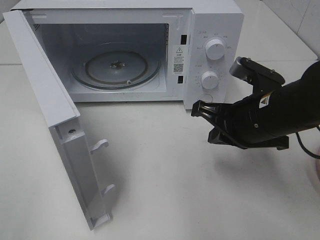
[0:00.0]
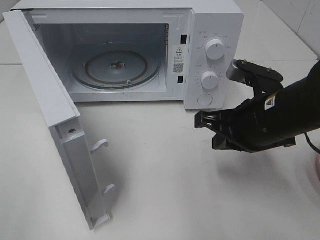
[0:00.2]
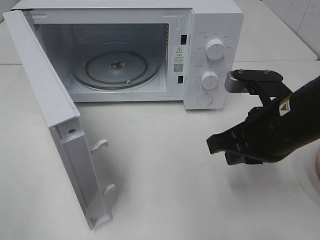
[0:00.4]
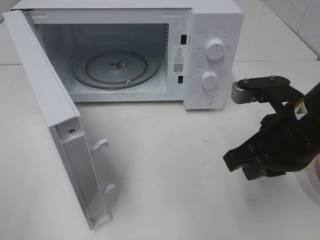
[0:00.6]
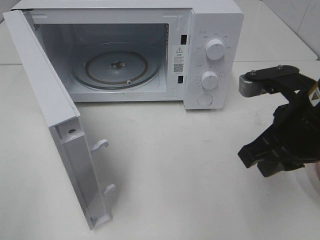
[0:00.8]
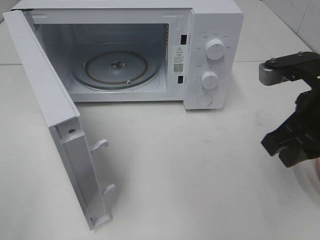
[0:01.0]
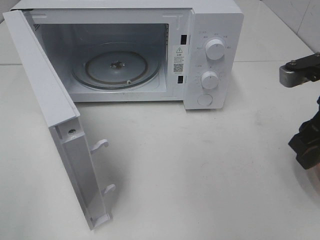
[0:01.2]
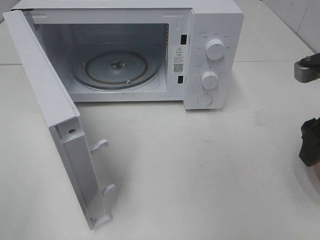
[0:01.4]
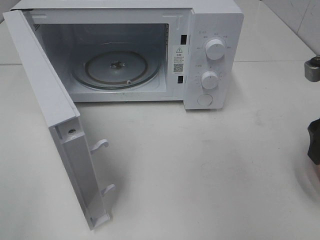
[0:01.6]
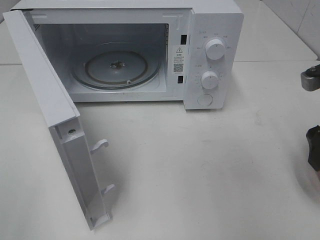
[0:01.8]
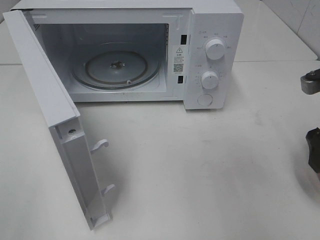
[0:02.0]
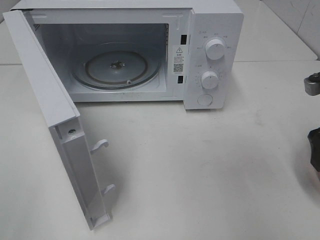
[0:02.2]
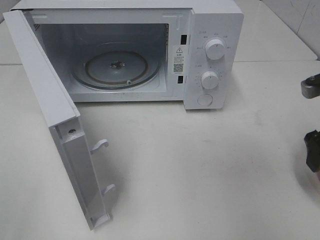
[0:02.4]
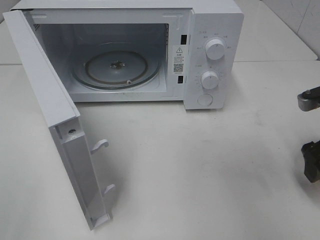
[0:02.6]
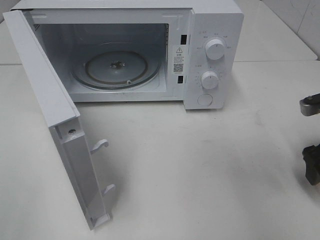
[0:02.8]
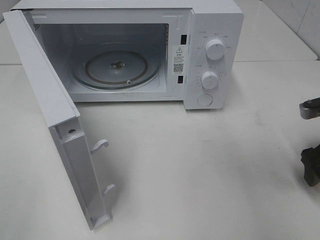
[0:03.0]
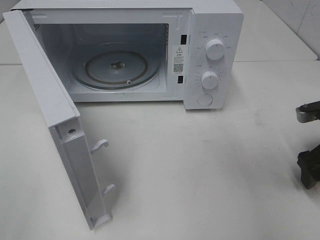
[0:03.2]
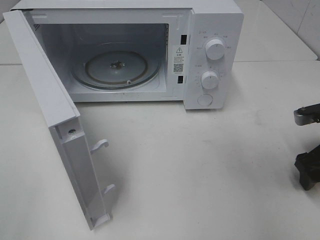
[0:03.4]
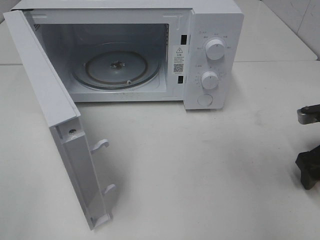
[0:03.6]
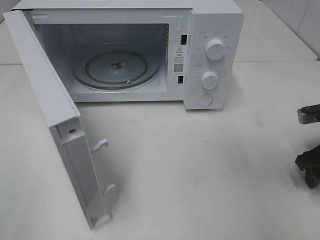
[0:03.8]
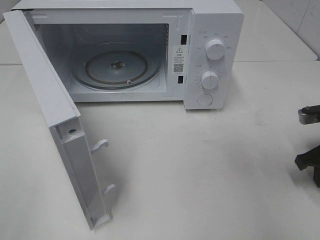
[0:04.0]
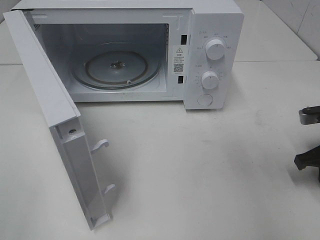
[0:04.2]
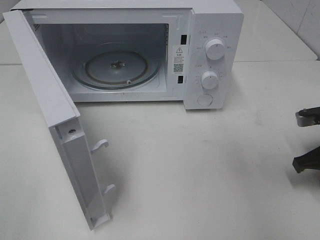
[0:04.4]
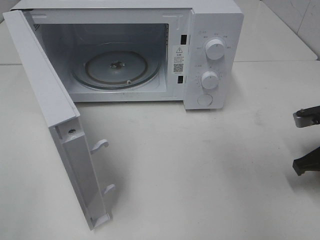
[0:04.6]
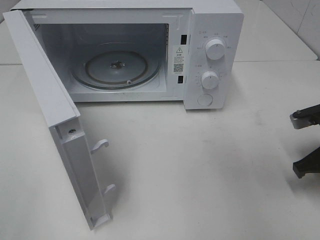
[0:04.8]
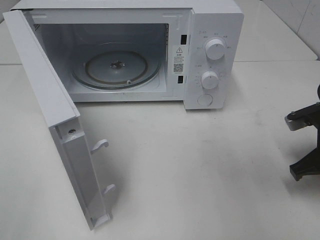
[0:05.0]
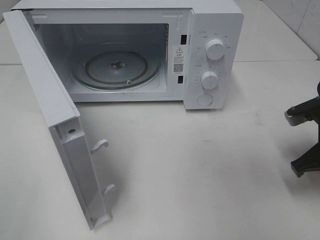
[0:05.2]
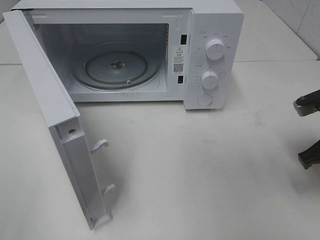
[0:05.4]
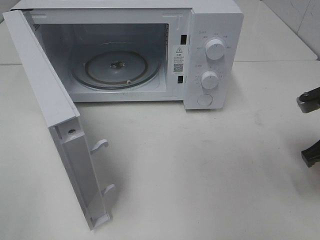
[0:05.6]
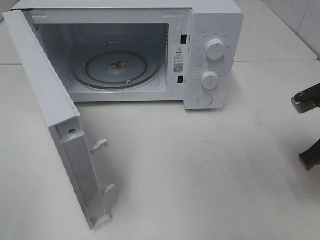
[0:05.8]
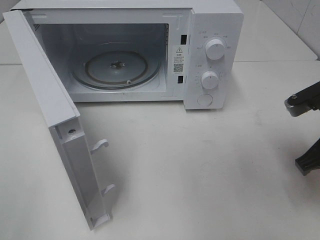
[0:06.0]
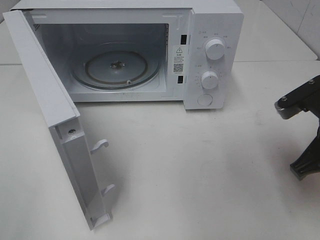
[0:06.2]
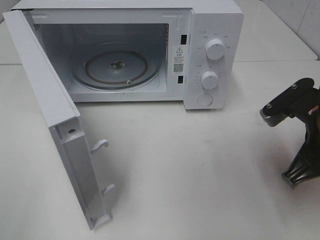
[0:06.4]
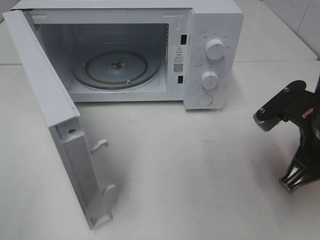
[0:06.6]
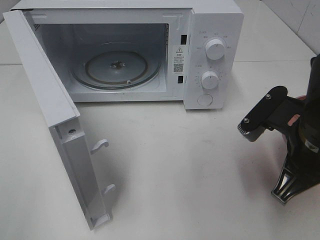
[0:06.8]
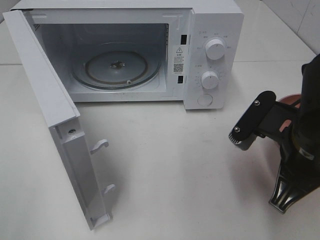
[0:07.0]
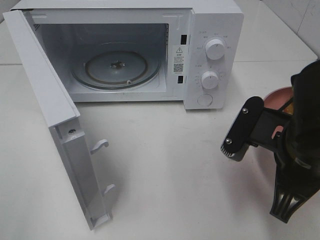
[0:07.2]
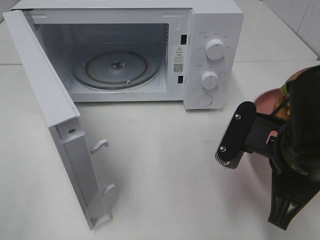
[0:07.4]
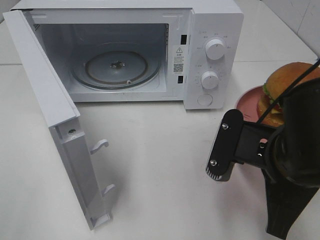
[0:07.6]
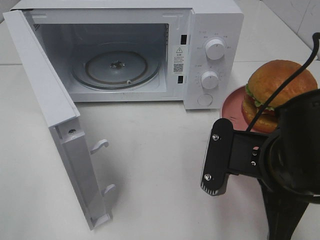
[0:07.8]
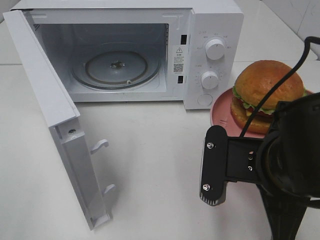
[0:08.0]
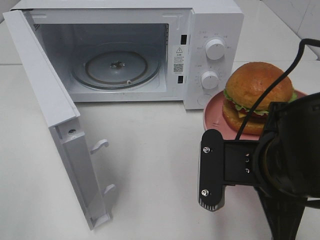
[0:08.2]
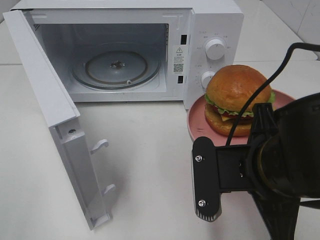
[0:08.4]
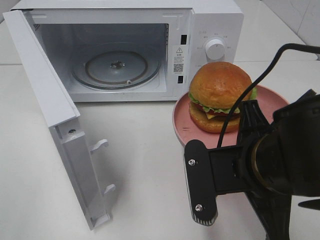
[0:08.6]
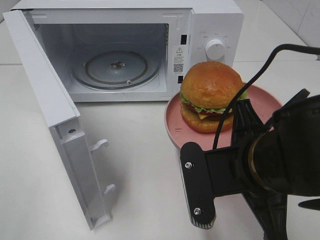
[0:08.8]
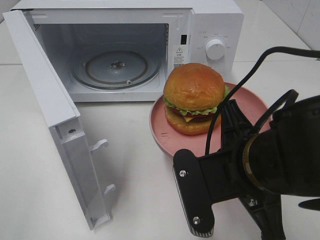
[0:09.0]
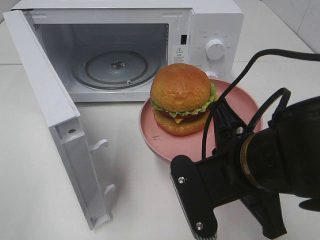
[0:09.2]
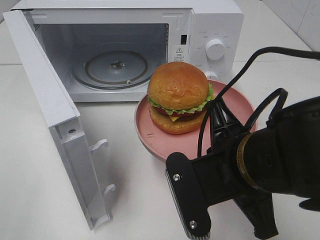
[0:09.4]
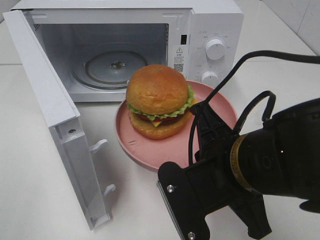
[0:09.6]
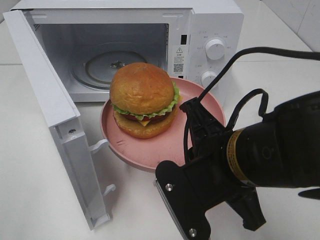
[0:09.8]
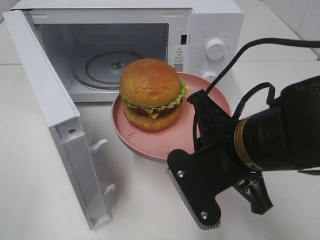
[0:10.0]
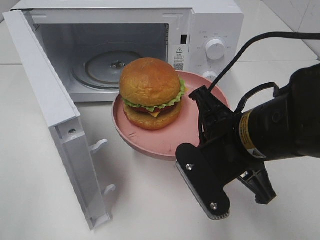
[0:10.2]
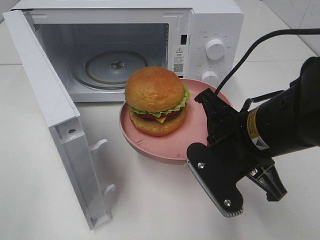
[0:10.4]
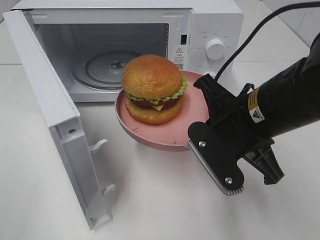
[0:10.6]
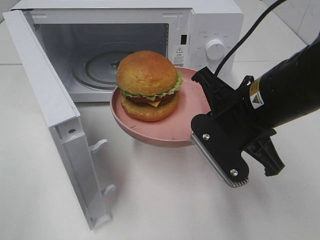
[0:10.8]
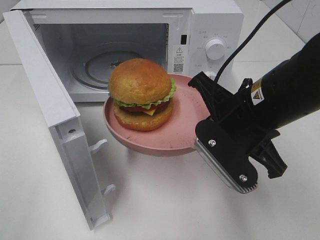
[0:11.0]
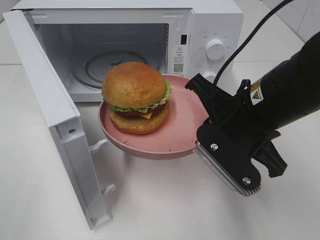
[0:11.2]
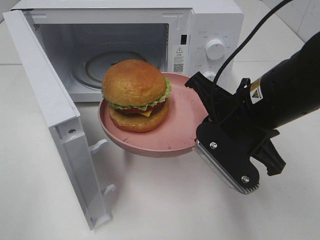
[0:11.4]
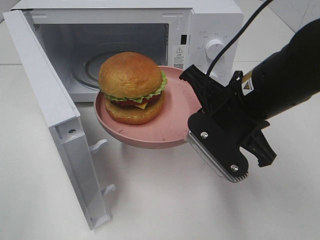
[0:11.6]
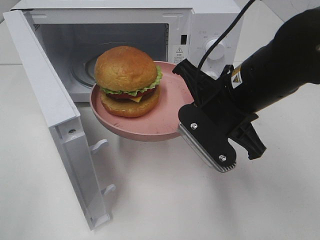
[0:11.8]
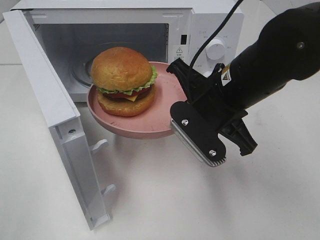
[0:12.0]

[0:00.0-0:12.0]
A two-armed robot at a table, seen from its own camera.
Task of the whole recording: Heat the burger.
Step, 0:00.0 to 0:04.6: Right hand: grab the plate with the hamburger.
0:00.0 to 0:01.6: The right gripper heads to the right and upward, covering approximately 15 cm, and opens.
0:01.6 to 0:03.0: The right gripper goes some 10 cm downward.
0:03.0 to 0:04.4: The right gripper closes.
0:04.4 to 0:06.0: The right gripper heads upward and to the left, covering about 10 cm.
0:06.0 to 0:07.6: The right gripper is displaced to the left and backward by roughly 15 cm.
0:09.0 to 0:10.4: The right gripper ends up some 5 cm from where it was.
0:10.4 to 0:12.0: The right gripper is displaced forward by roughly 5 cm.

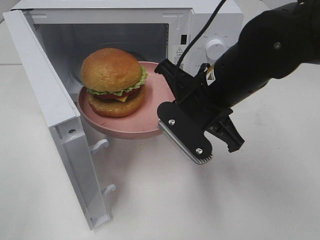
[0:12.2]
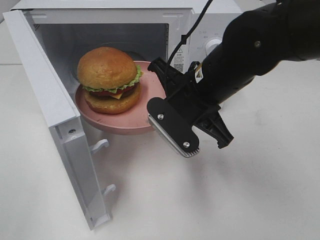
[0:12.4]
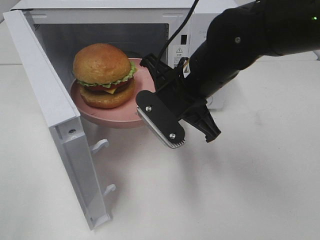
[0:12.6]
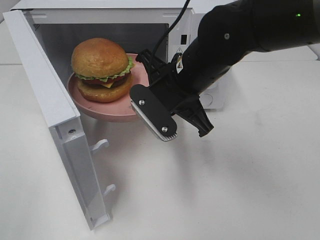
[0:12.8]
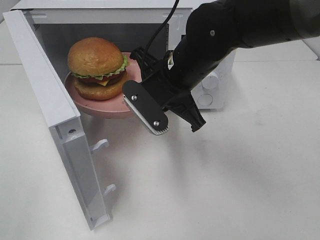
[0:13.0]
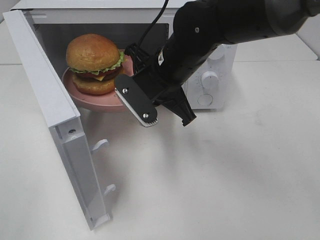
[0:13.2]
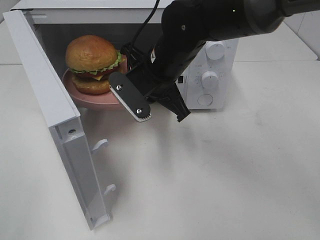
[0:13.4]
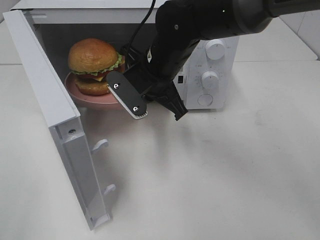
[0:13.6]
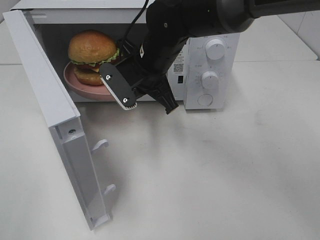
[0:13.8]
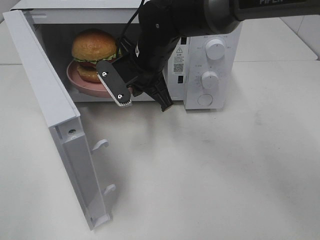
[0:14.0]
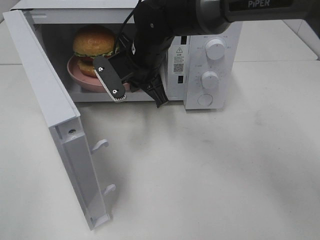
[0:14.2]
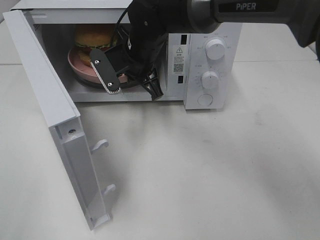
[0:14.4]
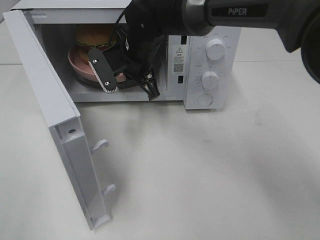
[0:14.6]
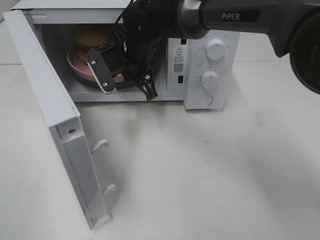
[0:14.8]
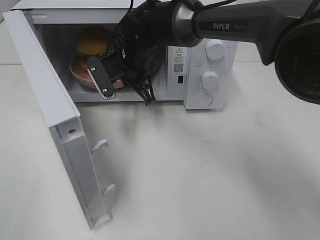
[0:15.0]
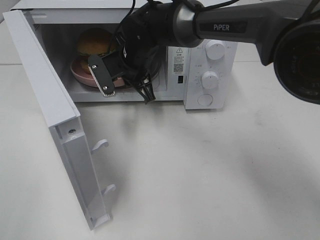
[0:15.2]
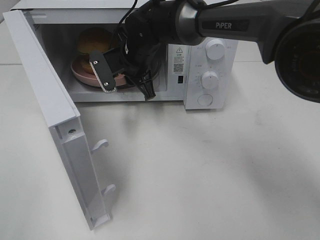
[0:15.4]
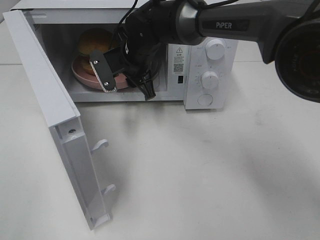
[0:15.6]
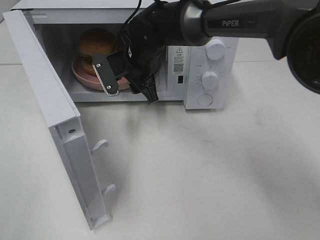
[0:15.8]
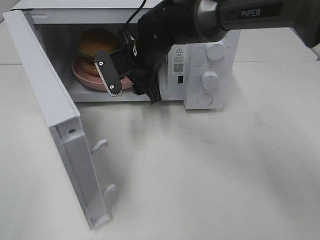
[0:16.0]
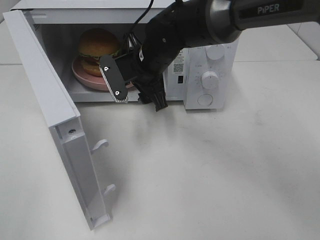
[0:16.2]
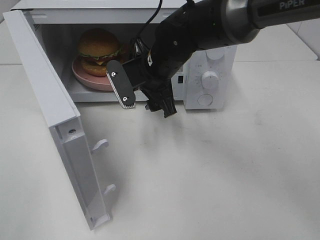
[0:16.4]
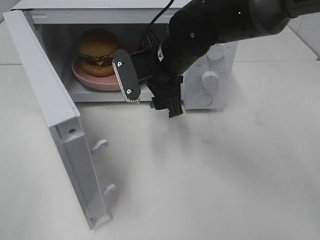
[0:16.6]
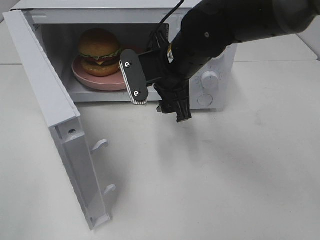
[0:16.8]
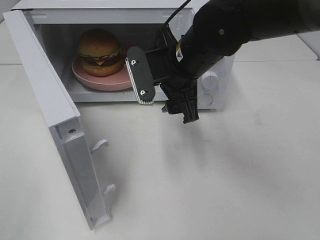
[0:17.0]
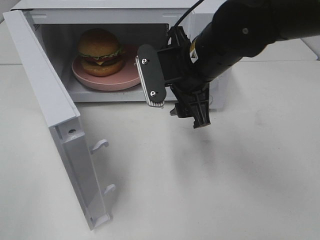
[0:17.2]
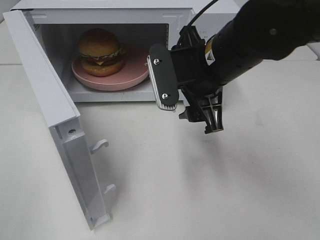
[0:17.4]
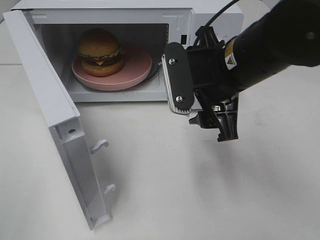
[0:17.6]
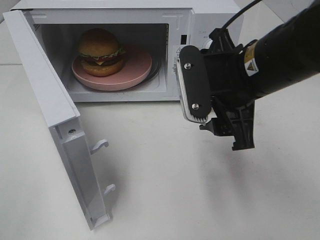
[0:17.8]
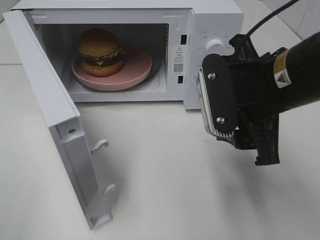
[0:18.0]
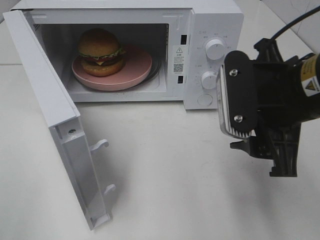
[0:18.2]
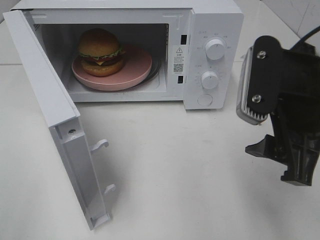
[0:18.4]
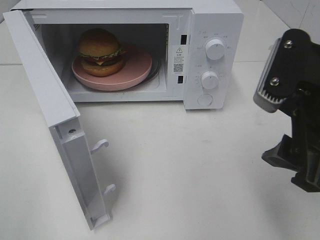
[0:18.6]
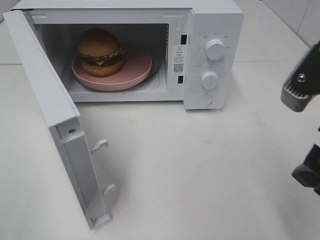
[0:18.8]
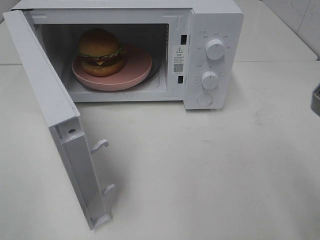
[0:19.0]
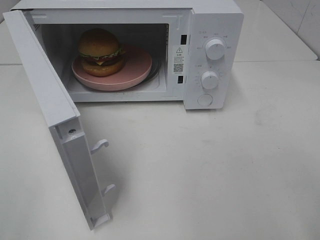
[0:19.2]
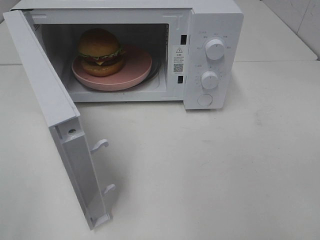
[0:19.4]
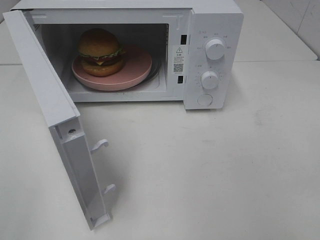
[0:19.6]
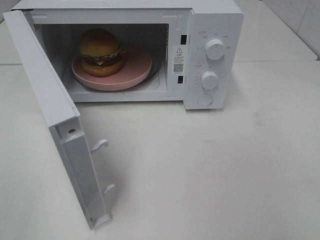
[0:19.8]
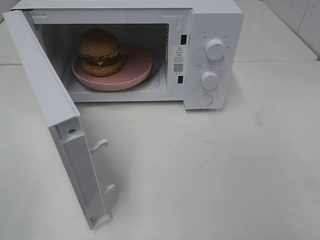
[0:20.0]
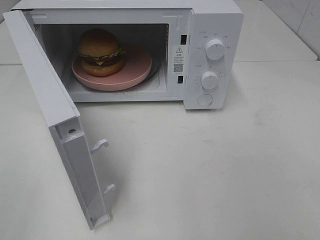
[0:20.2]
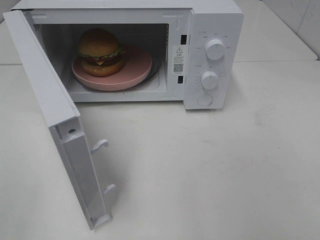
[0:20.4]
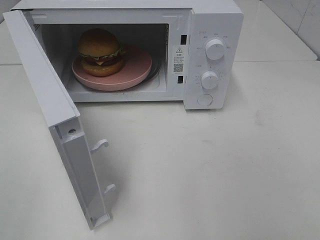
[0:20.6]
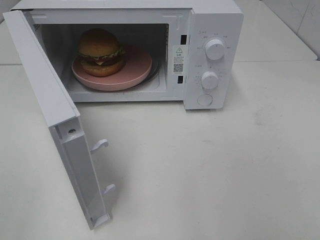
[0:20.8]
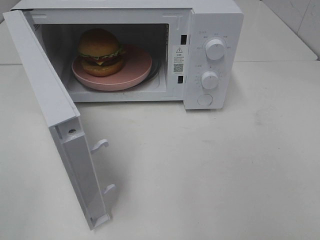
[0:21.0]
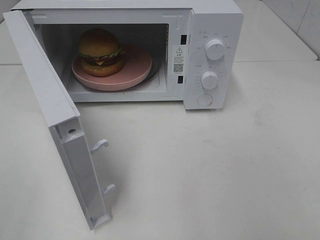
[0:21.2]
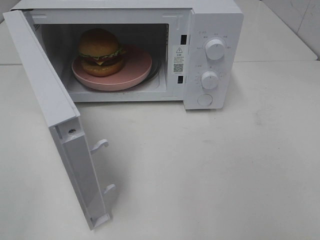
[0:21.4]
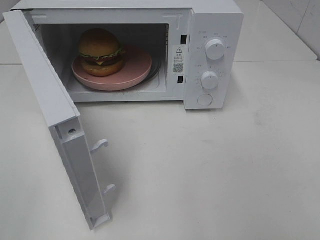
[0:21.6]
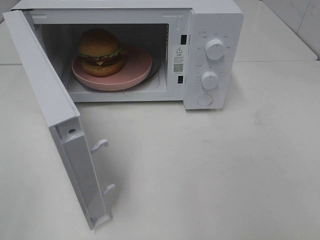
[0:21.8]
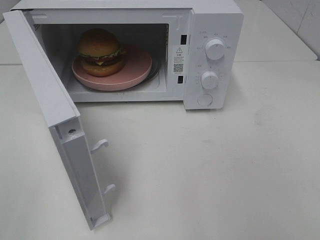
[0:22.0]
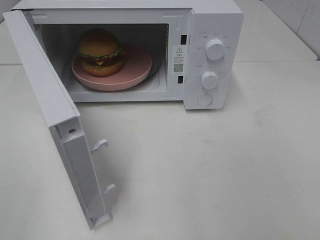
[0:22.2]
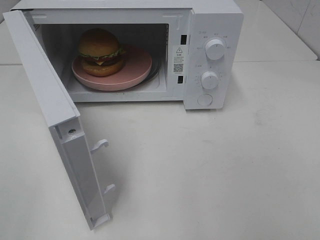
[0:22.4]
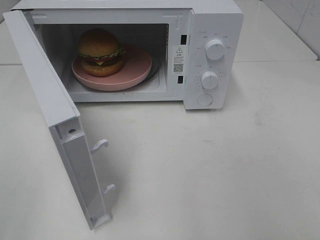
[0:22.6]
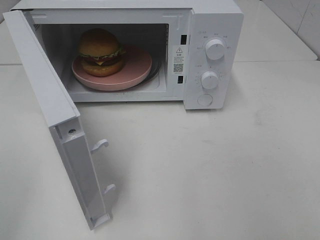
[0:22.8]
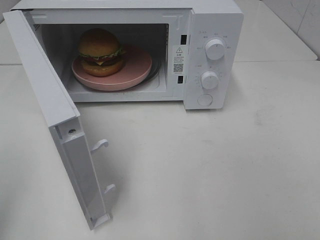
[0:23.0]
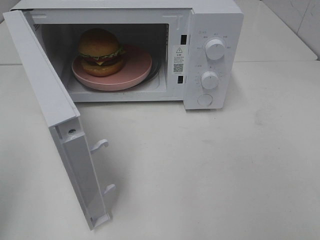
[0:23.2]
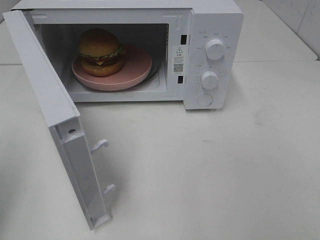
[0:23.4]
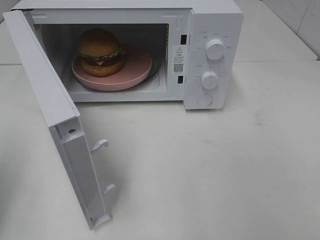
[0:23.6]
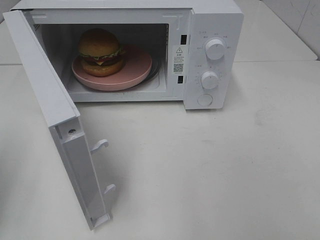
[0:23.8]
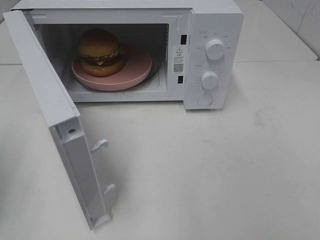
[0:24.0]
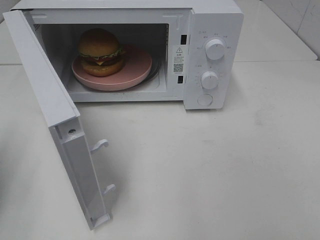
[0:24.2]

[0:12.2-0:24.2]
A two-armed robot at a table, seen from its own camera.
Task of the whole recording: Heat the burger.
Step, 0:12.2 to 0:15.8: Right hand: place the plate in the microwave.
0:12.2 to 0:13.8: The right gripper heads forward and to the left, covering about 15 cm.
0:13.8 to 0:15.2: The right gripper shifts approximately 5 cm forward.
0:15.2 to 0:16.6: The right gripper shifts some 10 cm backward and to the right, and opens its fingers.
0:16.6 to 0:18.2: The right gripper goes approximately 20 cm backward and to the right.
0:18.2 to 0:19.8: The right gripper is displaced backward and to the right by some 20 cm.
0:22.6 to 0:24.2: The left gripper travels forward and downward by about 20 cm, and closes its fingers.
